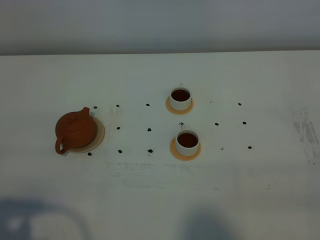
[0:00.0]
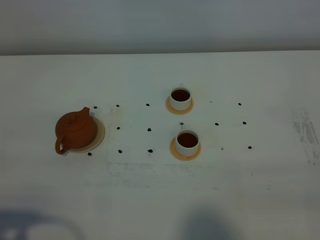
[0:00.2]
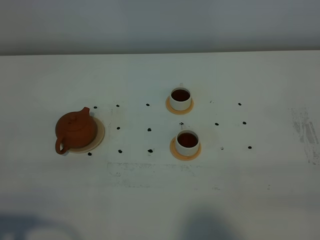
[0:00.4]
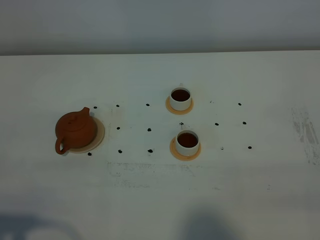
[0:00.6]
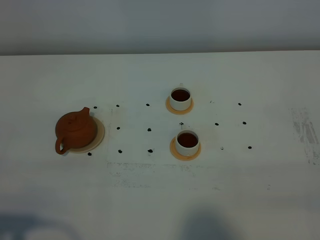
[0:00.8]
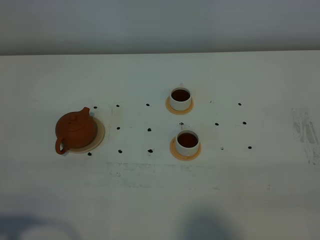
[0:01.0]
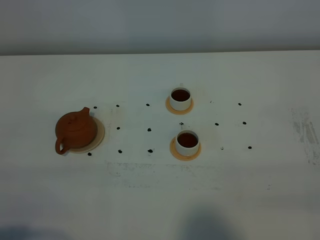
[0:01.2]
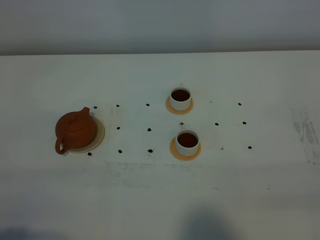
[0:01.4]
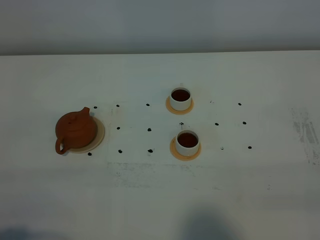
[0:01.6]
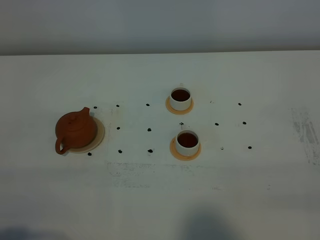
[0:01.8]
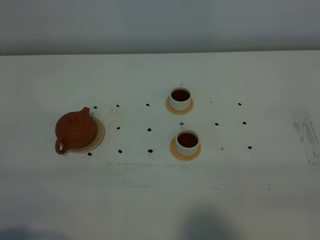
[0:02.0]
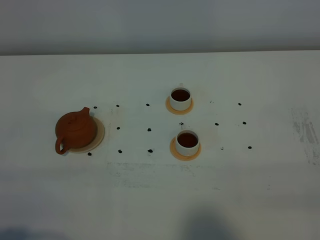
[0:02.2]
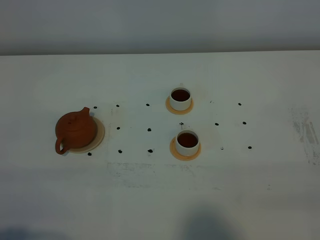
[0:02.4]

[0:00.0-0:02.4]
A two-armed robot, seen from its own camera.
Task of the whole recording: grasp the brown teapot and pour the tea into the two white teacups one by one, put the brown teapot back in its original place.
0:01.2 to 0:02.4: Both grippers stay put.

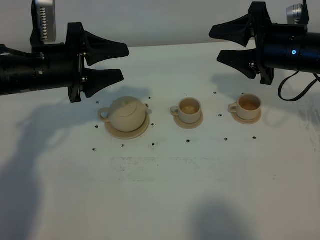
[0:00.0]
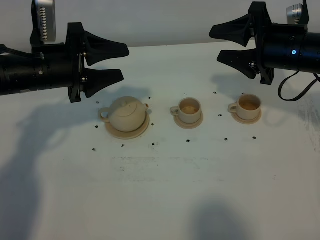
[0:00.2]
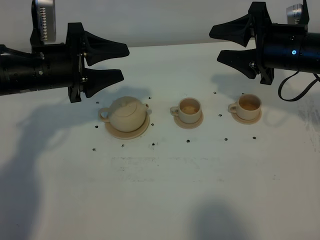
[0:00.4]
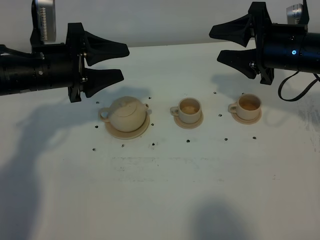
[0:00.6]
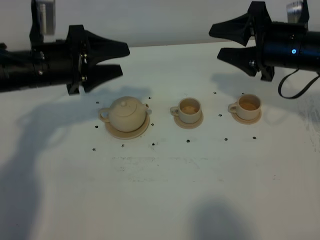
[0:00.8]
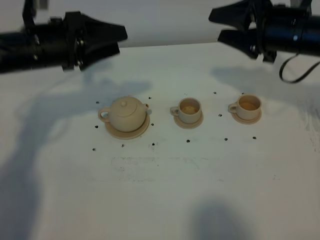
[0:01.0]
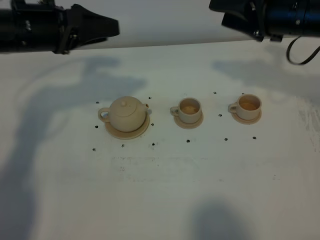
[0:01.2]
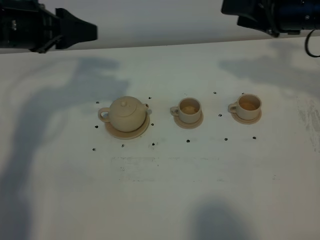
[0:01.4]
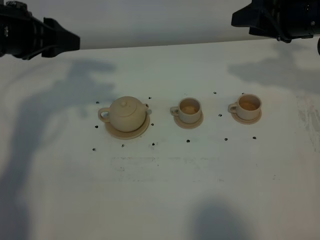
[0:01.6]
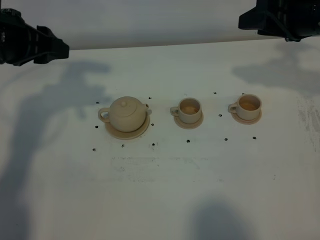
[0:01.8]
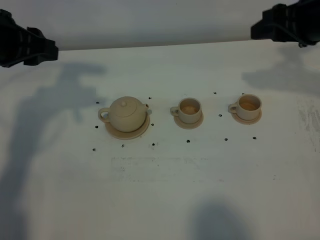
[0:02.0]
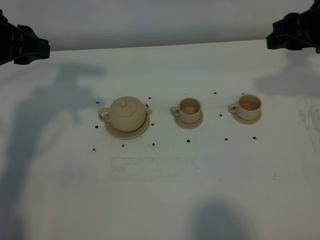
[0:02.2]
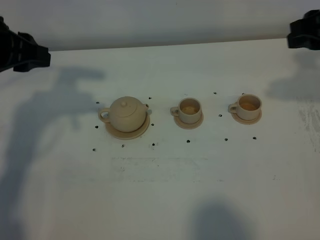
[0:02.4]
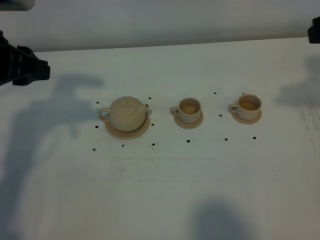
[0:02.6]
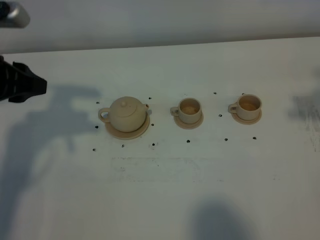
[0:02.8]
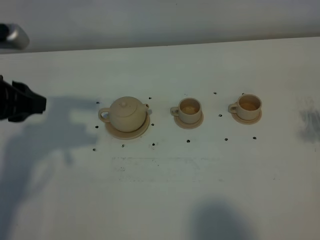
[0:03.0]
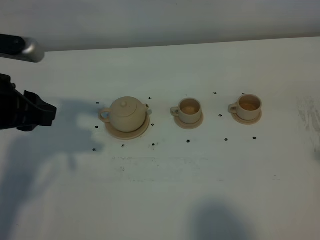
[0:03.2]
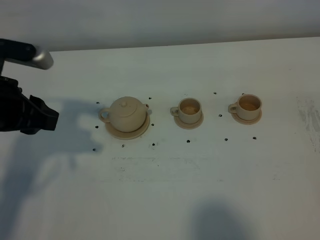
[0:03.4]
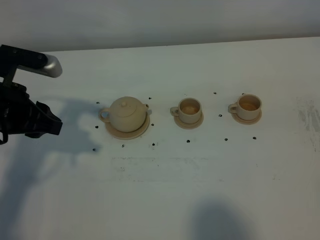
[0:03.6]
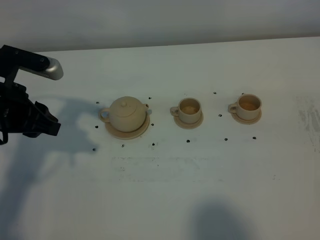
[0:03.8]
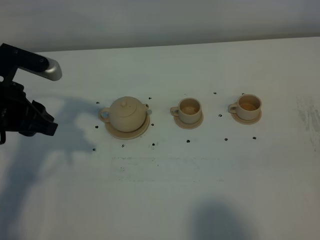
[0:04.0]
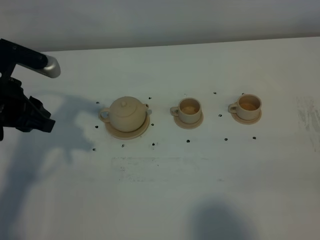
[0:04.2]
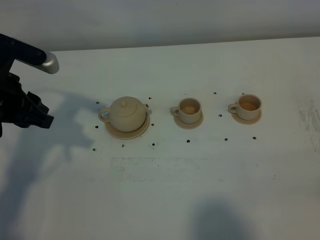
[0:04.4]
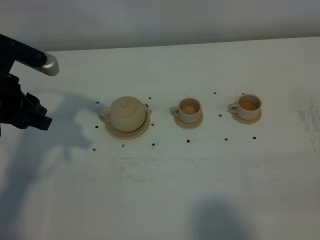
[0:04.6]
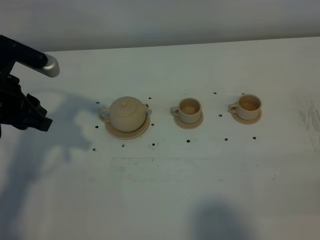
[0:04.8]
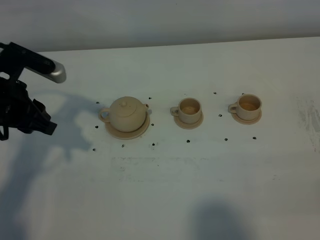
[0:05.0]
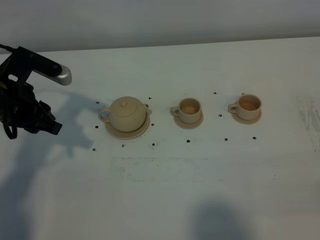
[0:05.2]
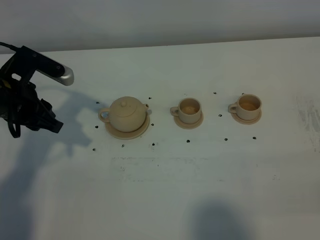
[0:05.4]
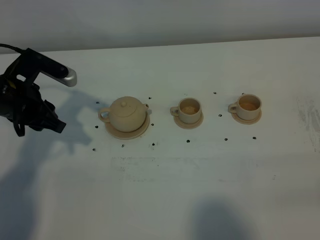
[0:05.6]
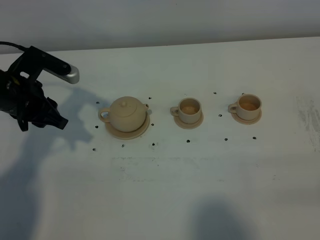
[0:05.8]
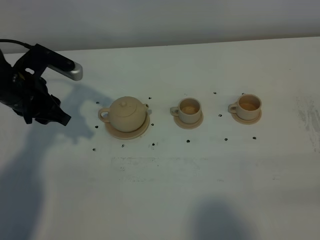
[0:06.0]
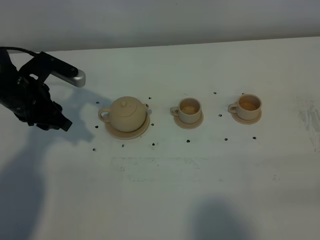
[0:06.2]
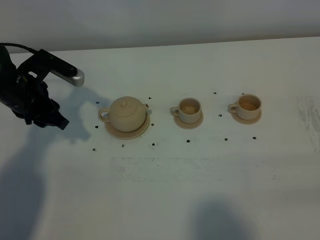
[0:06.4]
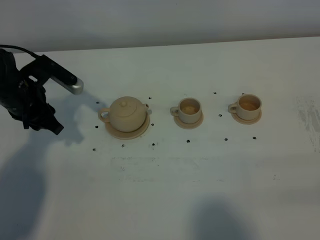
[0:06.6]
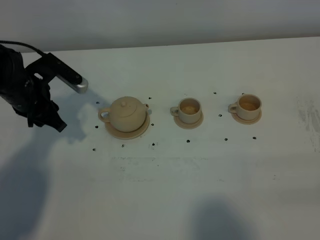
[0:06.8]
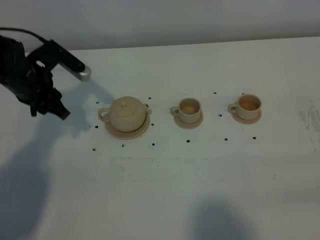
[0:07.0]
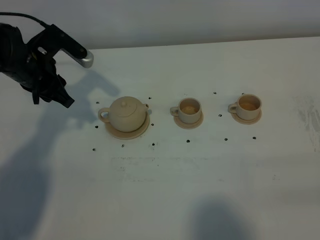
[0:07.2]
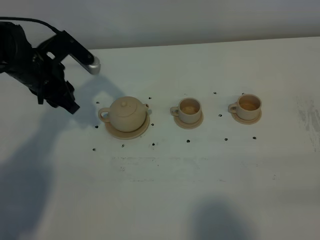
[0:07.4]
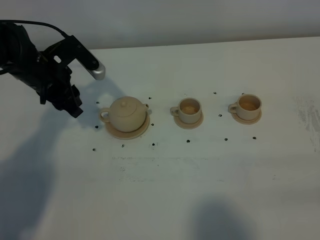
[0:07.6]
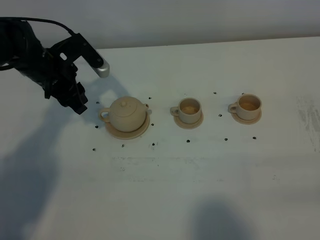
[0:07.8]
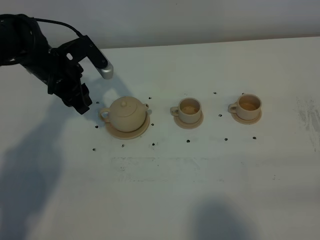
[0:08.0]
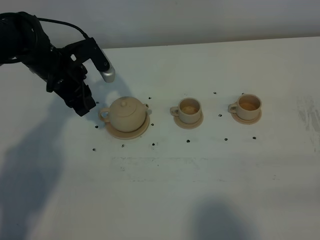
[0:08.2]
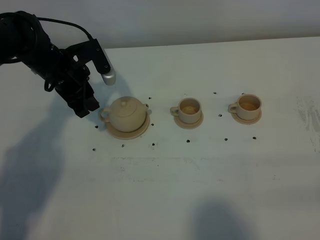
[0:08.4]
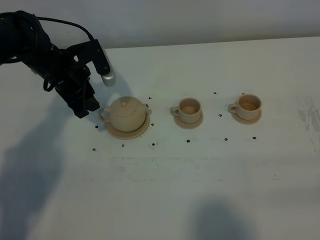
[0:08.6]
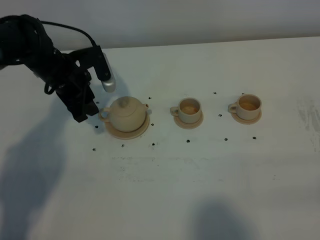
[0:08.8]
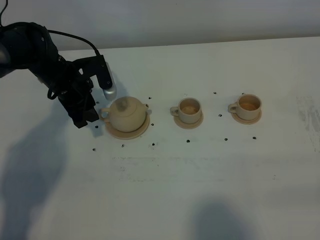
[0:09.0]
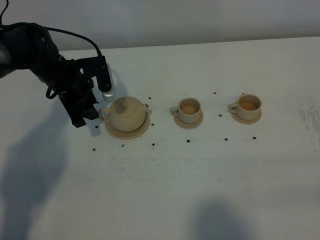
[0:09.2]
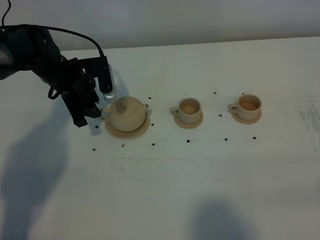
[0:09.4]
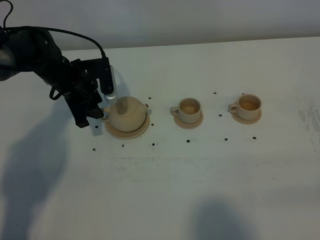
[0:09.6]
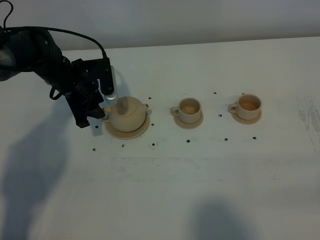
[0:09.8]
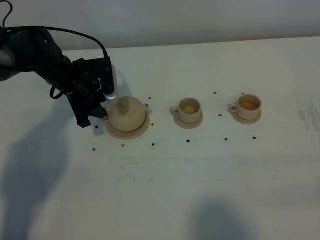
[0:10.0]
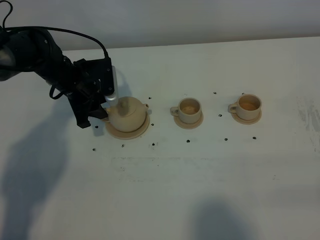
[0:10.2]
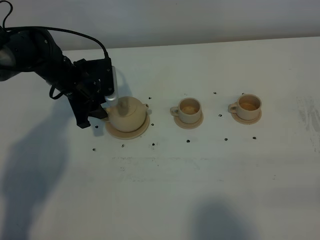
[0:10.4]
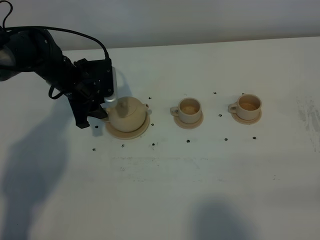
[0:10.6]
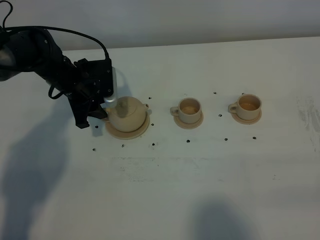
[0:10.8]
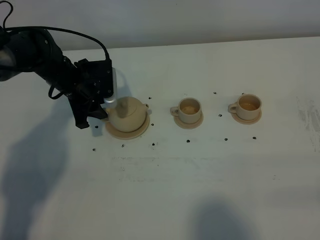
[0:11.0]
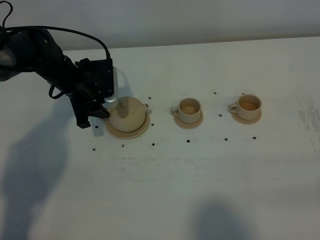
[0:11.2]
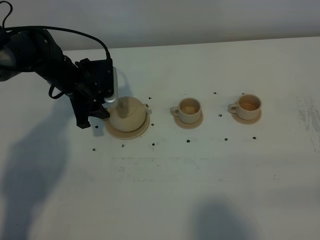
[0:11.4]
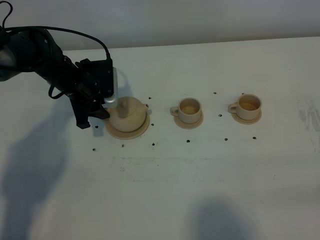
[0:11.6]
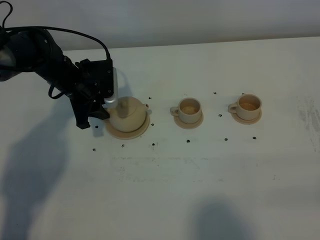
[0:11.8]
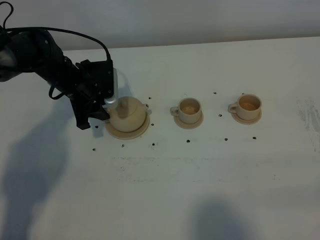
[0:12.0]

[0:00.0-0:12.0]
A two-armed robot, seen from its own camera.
Task of the whole recording: grasp the brown teapot and pour the tea into the two brown teacups one by one, put the brown teapot back in its original place.
0:00.0 to 0:01.6: The right gripper ends up approximately 5 cm from where it was. Meanwhile the left gripper heads upward, covering some 10 cm.
0:01.6 to 0:03.0: The right gripper goes some 25 cm backward and upward; the left gripper goes some 10 cm backward.
0:04.4 to 0:06.0: The left gripper travels forward and downward by some 10 cm.
0:06.0 to 0:07.6: The left gripper shifts by roughly 5 cm.
0:07.6 to 0:09.0: The left gripper ends up about 5 cm from where it was.
0:09.0 to 0:10.4: There are only small adjustments of the grippers.
0:10.4 to 0:12.0: Both grippers stay put.

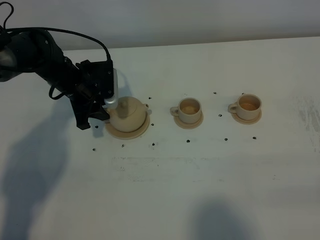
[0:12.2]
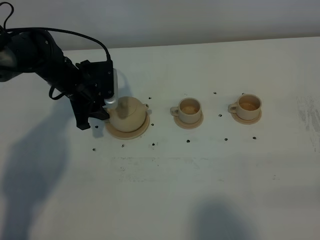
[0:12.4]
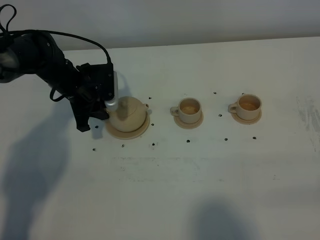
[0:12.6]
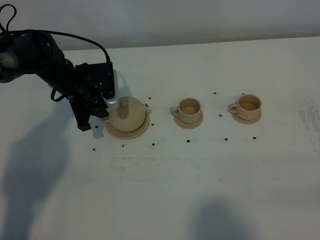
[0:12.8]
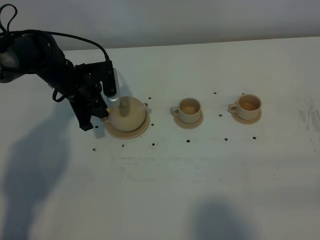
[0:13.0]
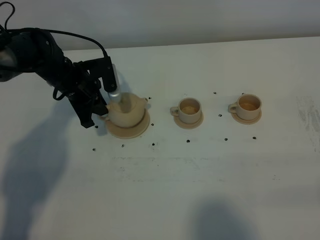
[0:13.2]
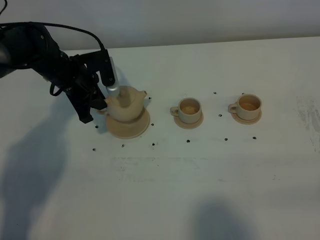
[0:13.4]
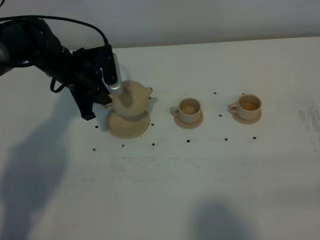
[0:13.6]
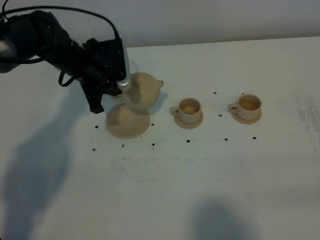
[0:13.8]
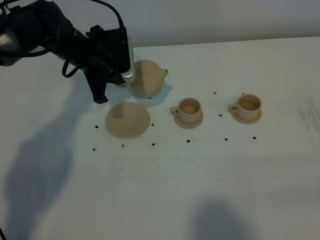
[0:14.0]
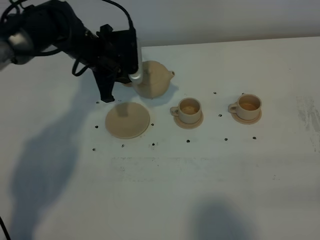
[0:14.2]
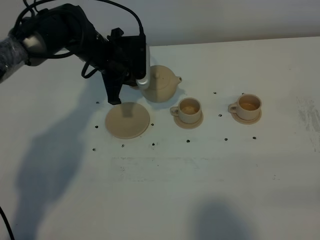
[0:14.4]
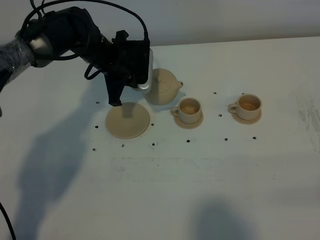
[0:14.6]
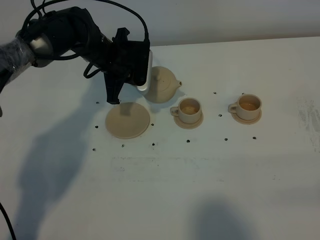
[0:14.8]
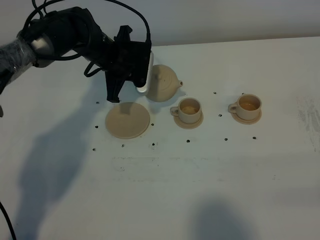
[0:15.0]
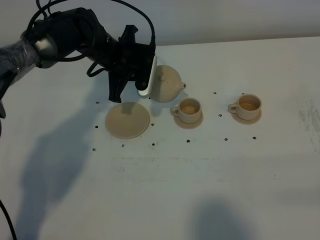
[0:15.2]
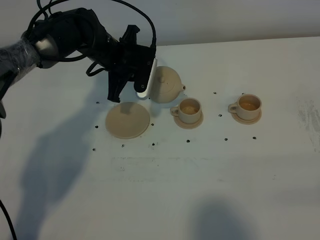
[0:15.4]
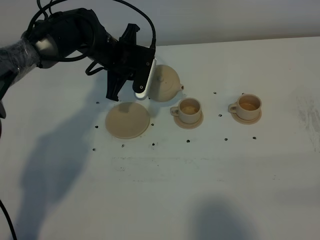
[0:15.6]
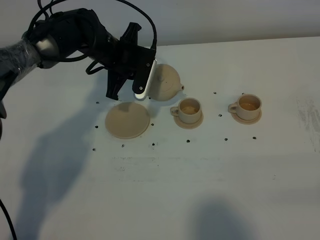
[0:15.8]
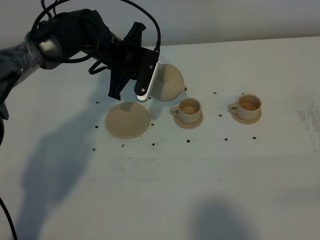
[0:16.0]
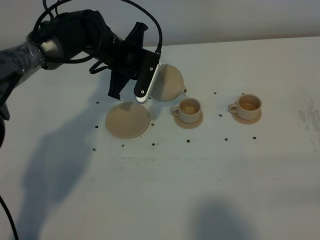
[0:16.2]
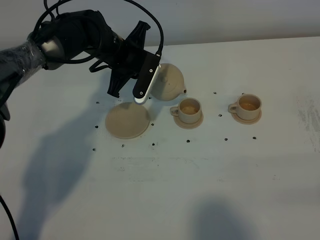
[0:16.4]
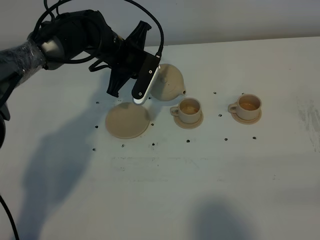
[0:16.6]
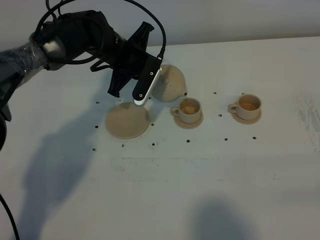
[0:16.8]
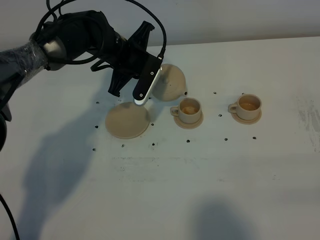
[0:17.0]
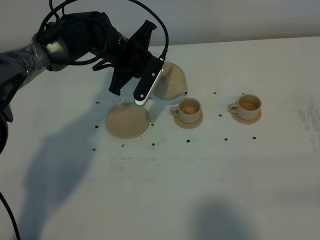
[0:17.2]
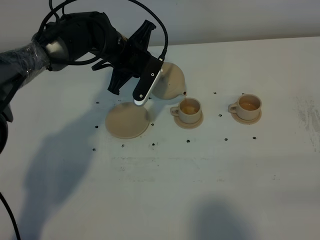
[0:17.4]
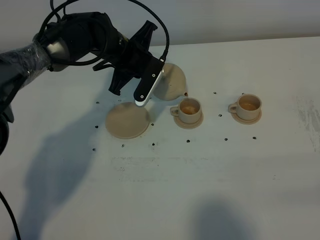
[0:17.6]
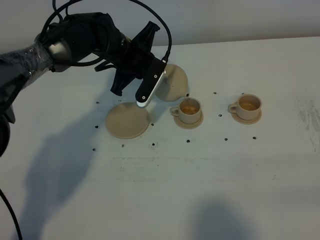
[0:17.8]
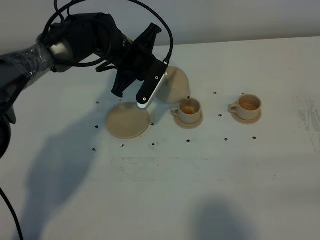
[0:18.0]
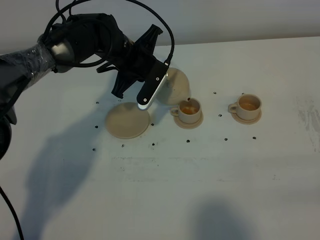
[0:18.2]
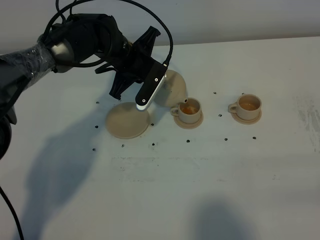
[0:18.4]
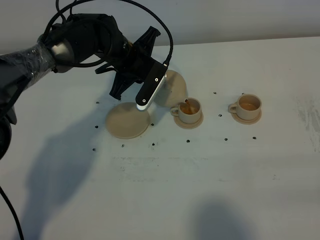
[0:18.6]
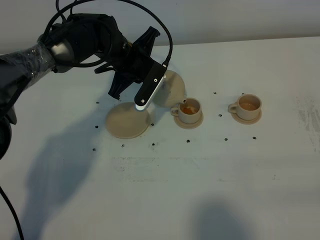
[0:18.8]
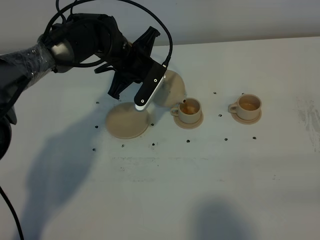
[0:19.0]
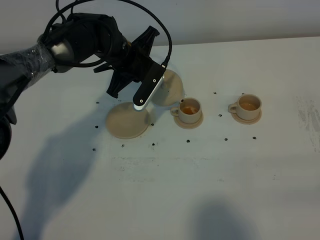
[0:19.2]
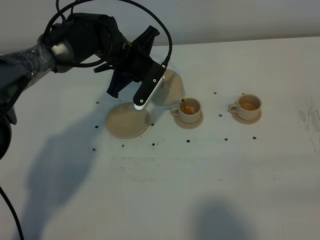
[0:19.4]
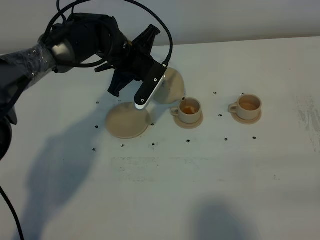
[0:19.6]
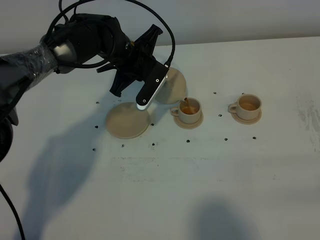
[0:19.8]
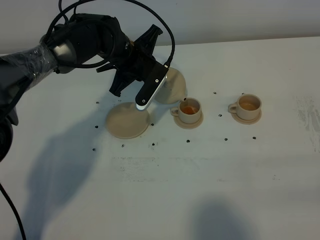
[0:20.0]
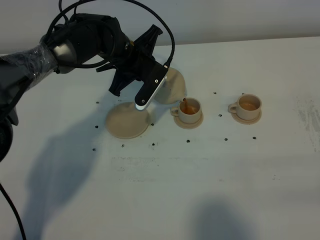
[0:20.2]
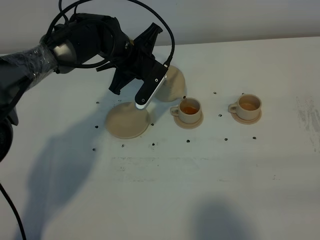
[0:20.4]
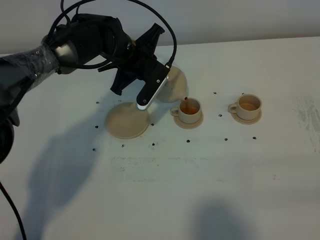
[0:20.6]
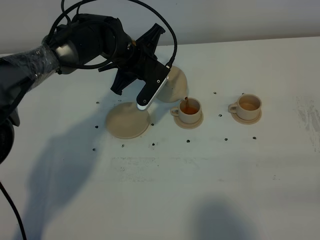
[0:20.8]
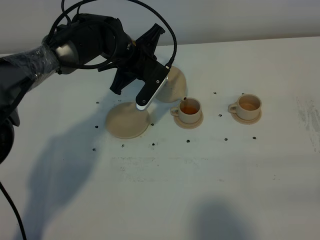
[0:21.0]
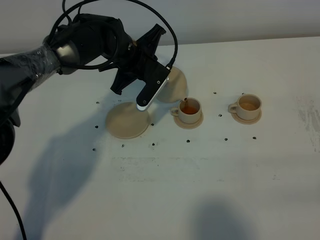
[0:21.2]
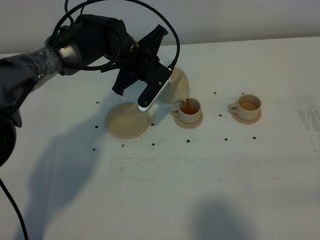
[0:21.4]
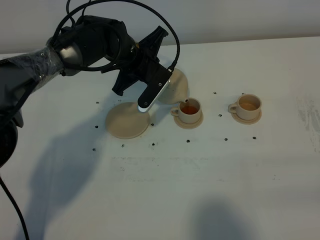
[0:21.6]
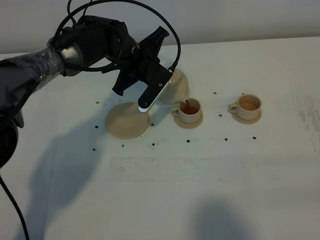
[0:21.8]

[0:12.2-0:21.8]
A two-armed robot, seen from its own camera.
Task of the whole recording: grasp the brown teapot and pour the tea into the two brown teacups one by one, put the brown teapot back in its original place.
0:12.2 to 0:13.8: The left gripper moves approximately 5 cm, and closes up.
0:13.8 to 0:15.4: The left gripper goes some 5 cm to the right.
0:15.4 to 0:17.0: The grippers stay close to where they were, moving slightly.
0:17.0 to 0:20.2: The grippers make only small movements.
0:20.2 to 0:21.8: Neither gripper changes place.
